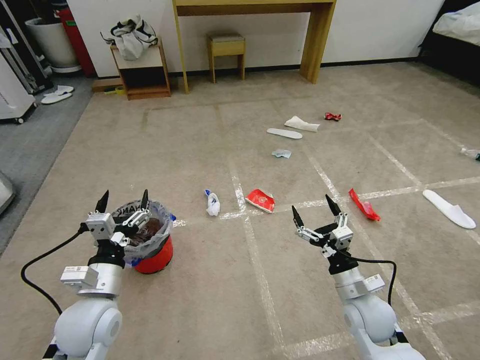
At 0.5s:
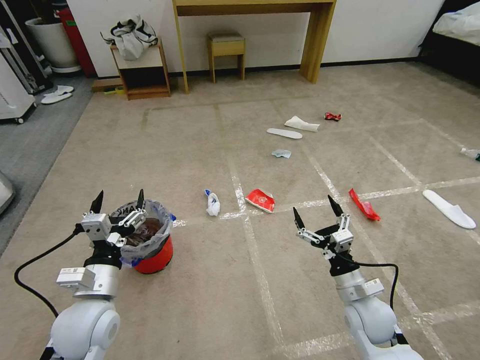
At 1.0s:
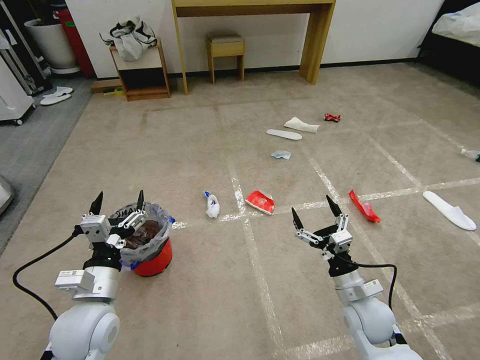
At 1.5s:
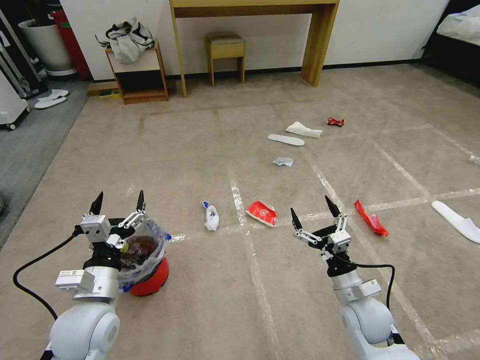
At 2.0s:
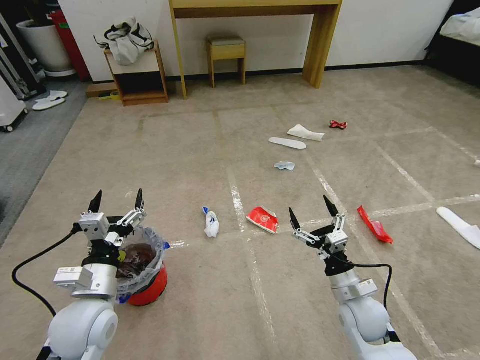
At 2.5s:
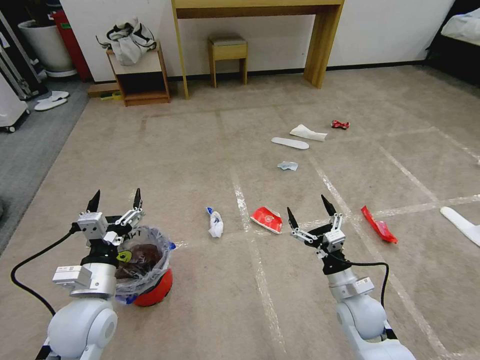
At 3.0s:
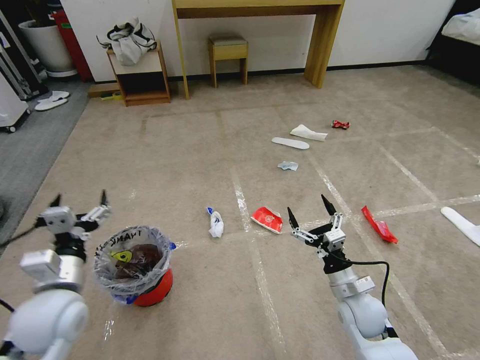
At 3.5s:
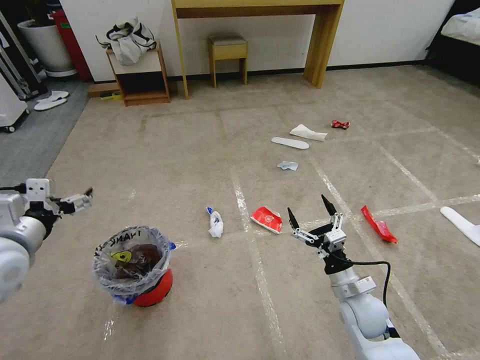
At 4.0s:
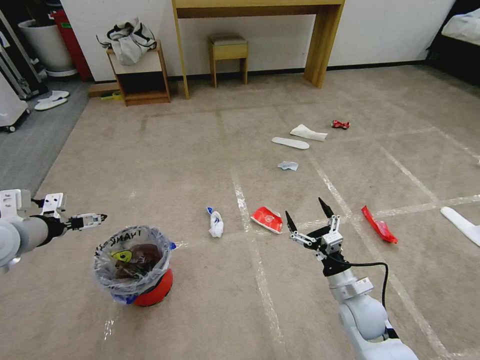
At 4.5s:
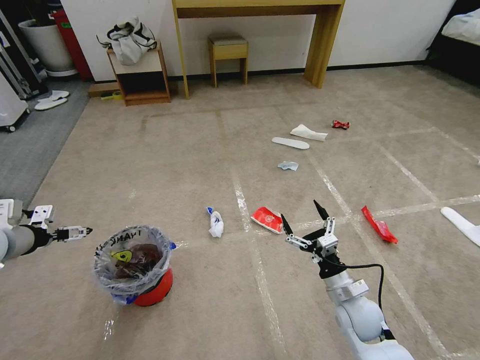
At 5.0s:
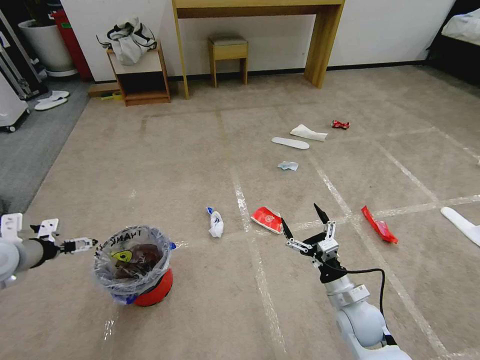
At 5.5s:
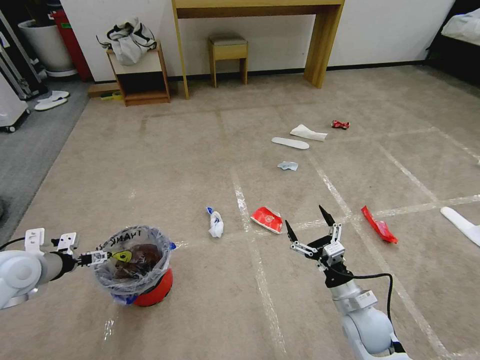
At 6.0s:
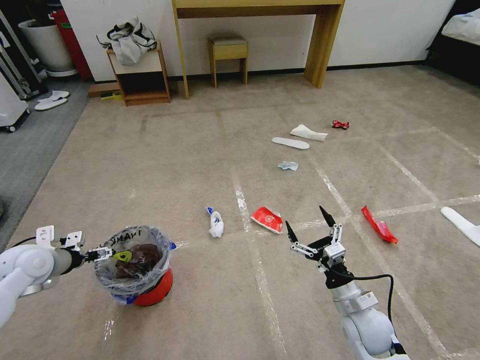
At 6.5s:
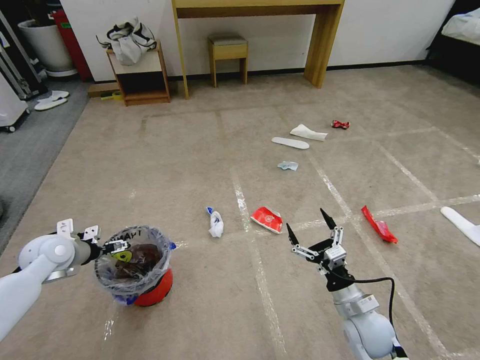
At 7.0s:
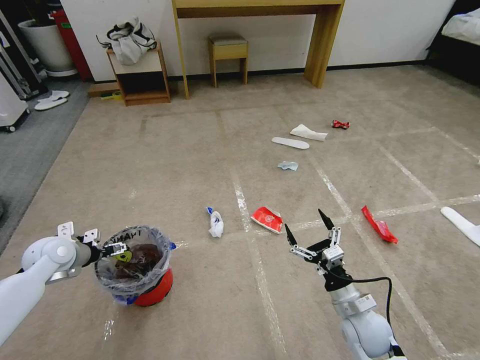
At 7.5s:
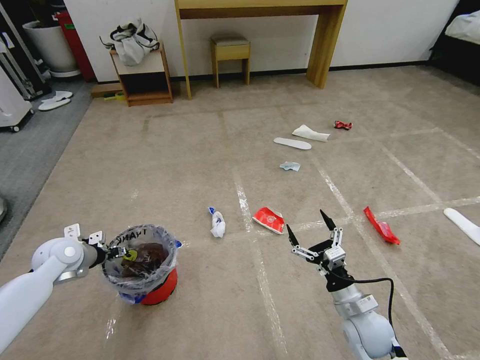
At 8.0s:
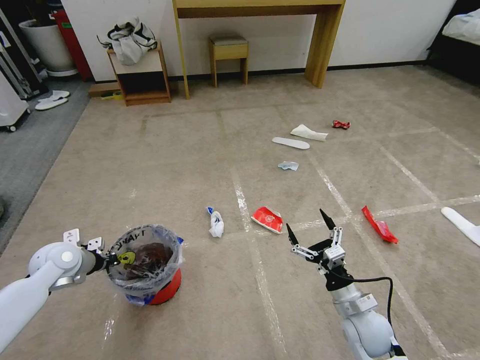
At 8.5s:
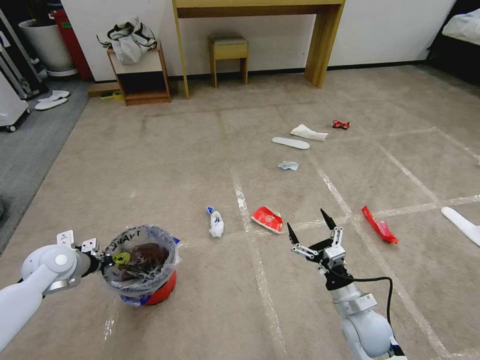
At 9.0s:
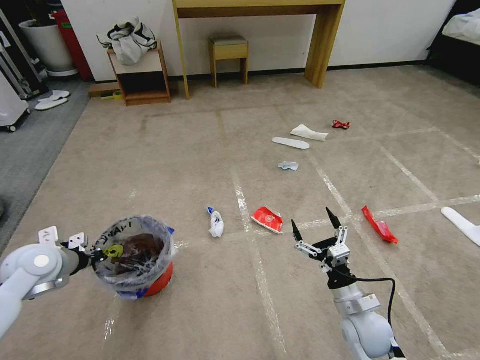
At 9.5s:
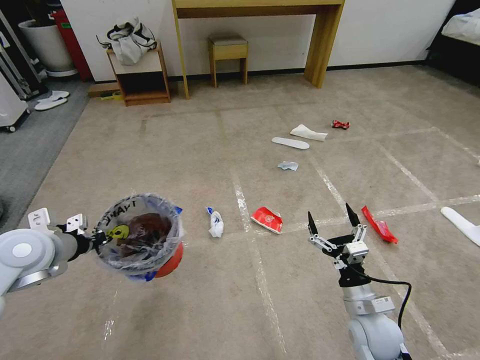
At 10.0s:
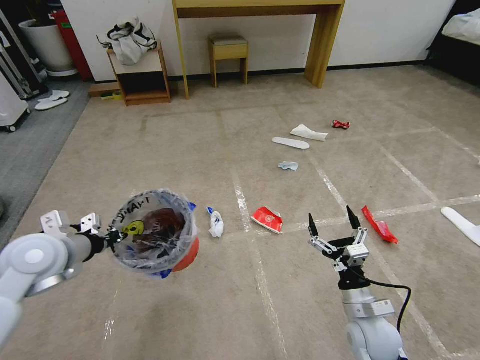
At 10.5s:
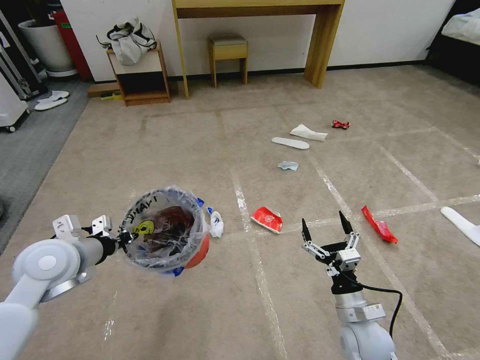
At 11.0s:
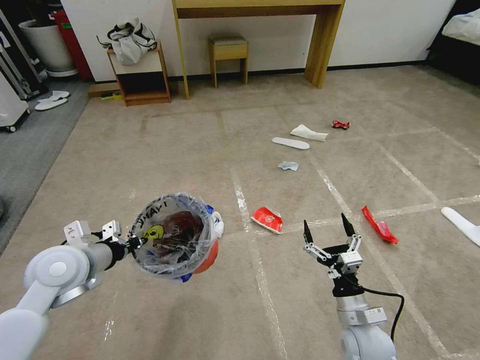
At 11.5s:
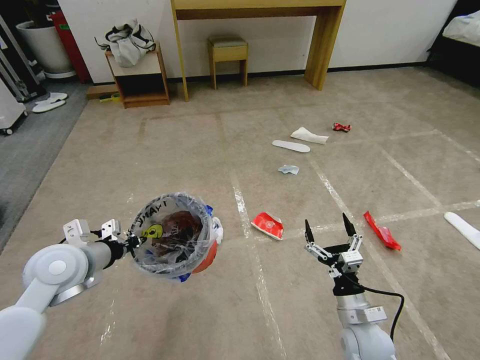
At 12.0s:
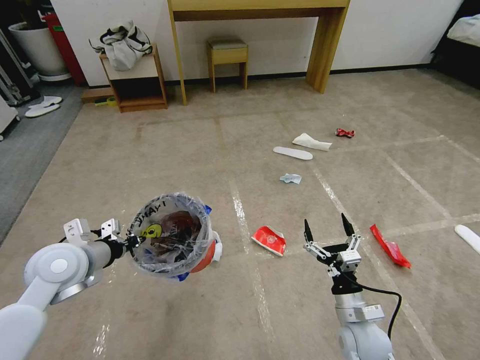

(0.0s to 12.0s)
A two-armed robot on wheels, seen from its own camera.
Task of the whole recording: Pick up the trash bin and place the garbage on the floor into it.
2.0s - 4.0s: The left gripper moves to the left, upward and forward, approximately 20 cm.
4.0s - 6.0s: The left gripper heads downward, covering approximately 10 cm.
6.0s - 8.0s: The left gripper moves about 5 cm, and closes.
8.0s - 10.0s: The left gripper travels upward, backward and to the right by roughly 15 cm.

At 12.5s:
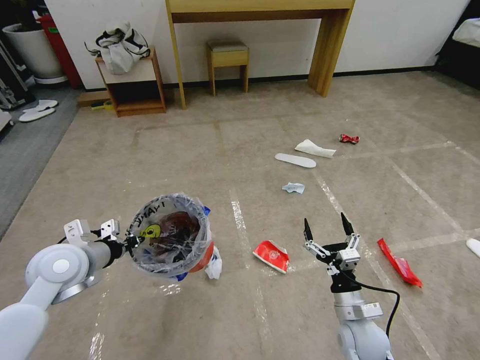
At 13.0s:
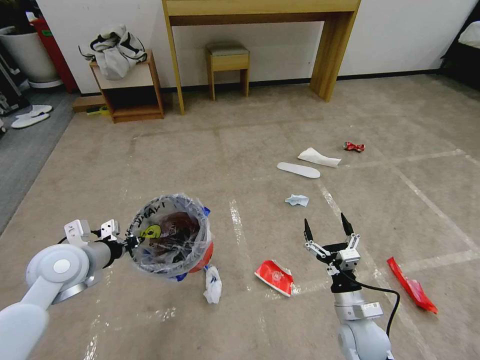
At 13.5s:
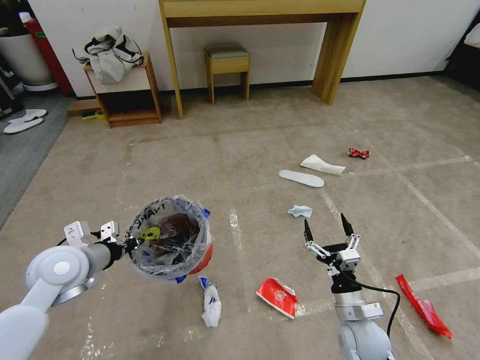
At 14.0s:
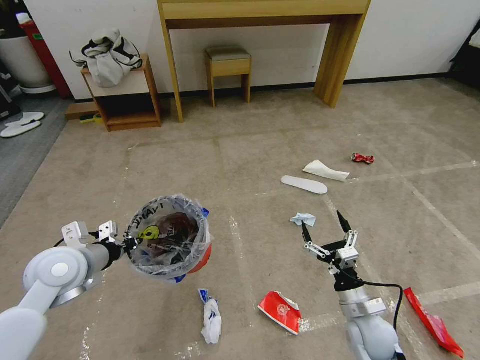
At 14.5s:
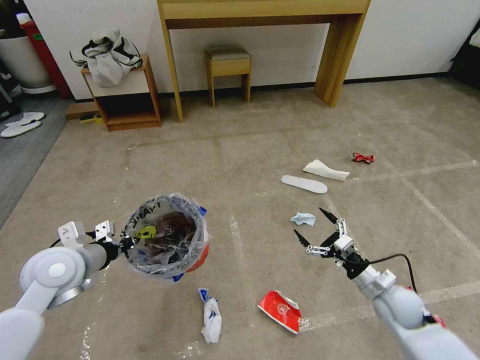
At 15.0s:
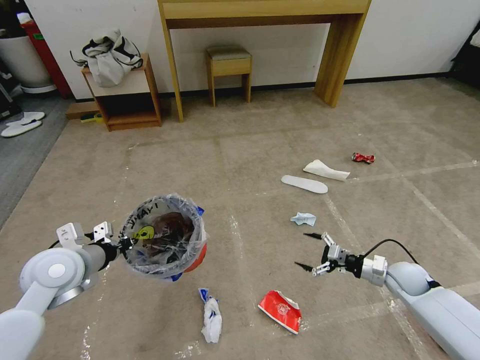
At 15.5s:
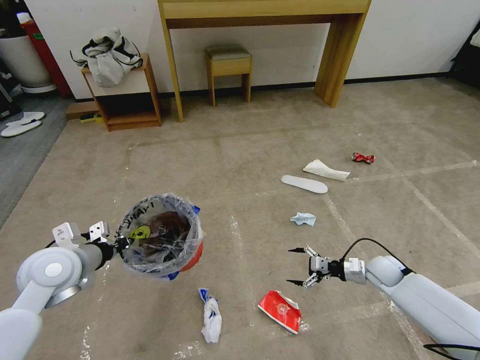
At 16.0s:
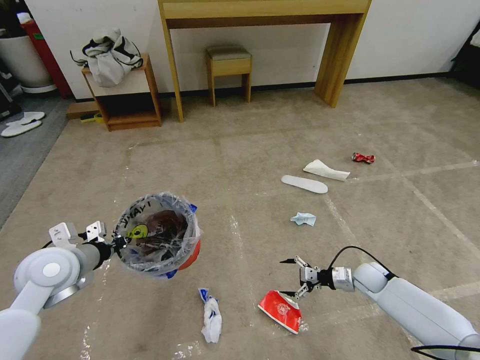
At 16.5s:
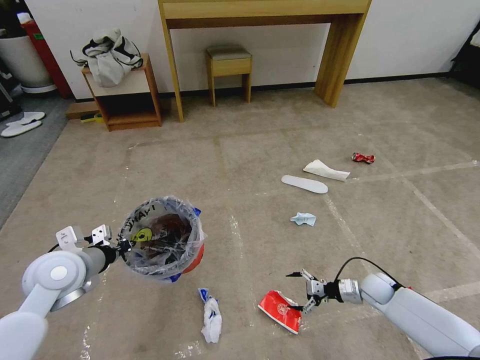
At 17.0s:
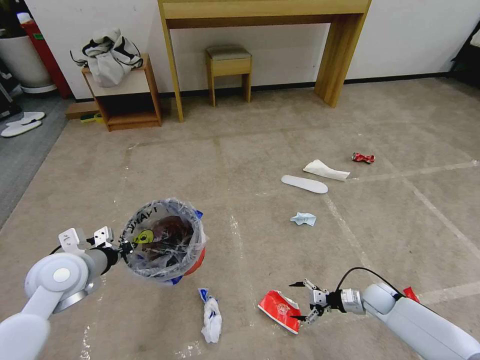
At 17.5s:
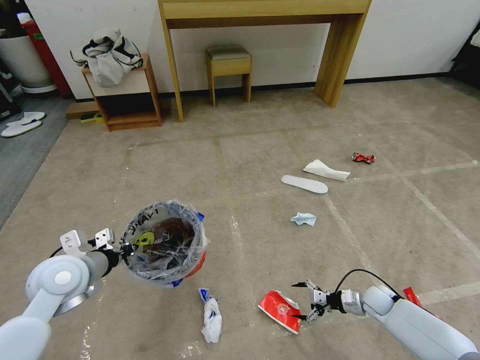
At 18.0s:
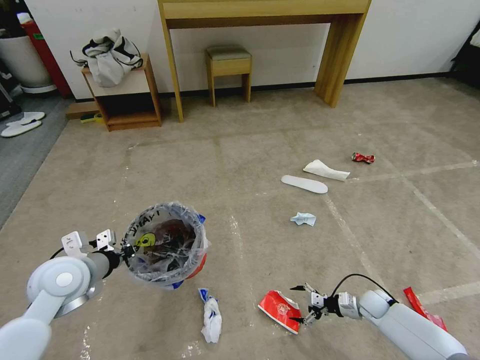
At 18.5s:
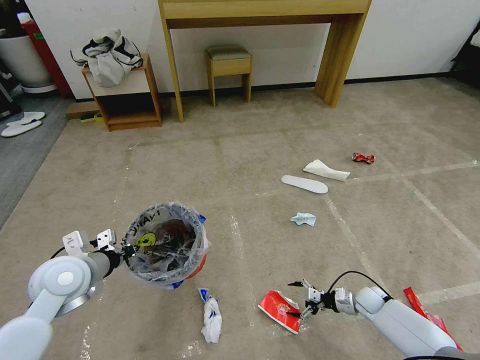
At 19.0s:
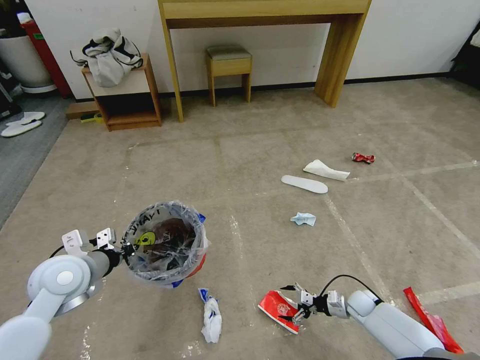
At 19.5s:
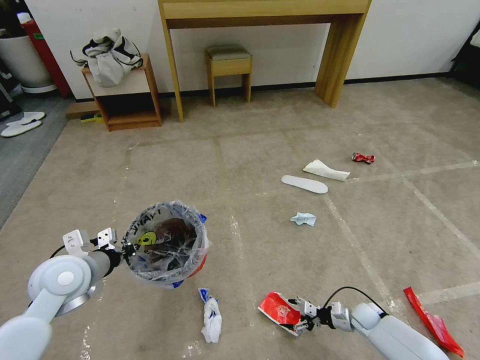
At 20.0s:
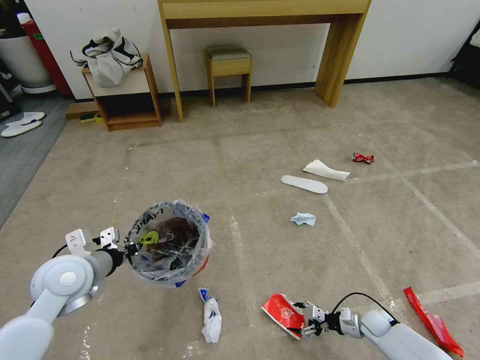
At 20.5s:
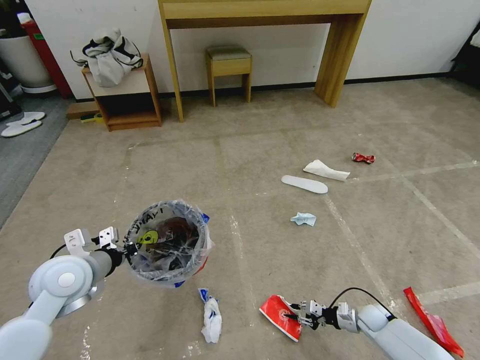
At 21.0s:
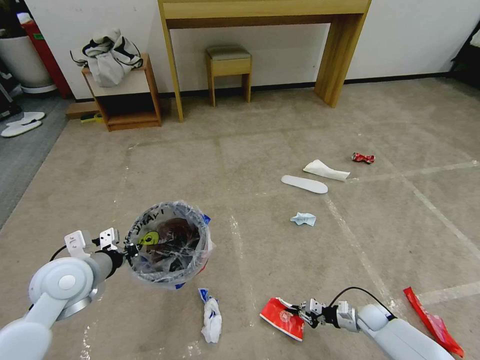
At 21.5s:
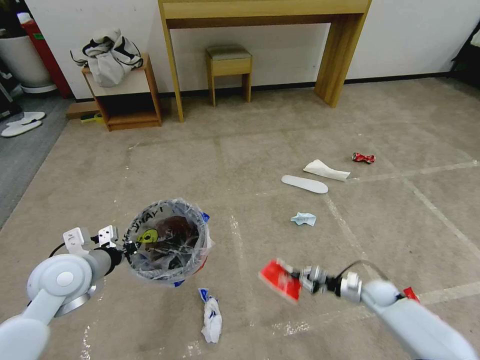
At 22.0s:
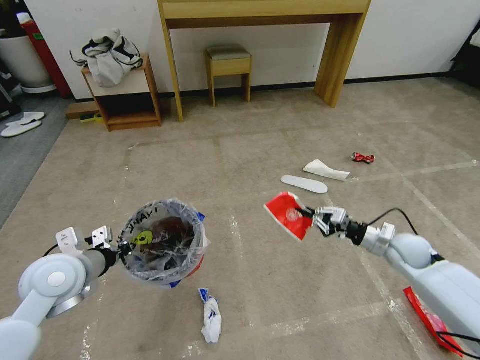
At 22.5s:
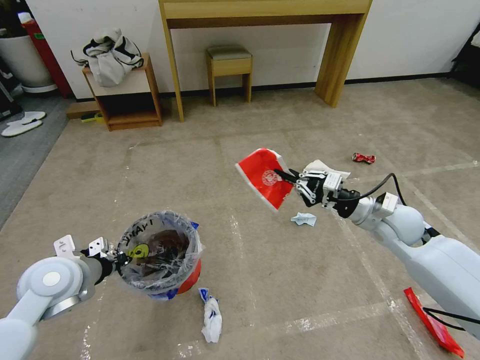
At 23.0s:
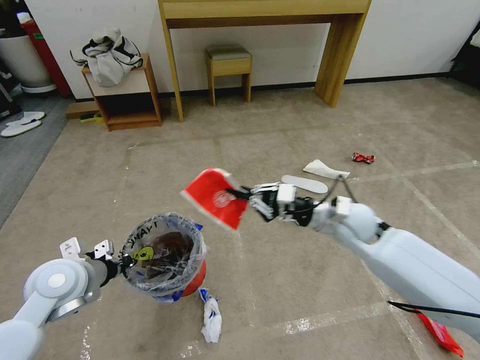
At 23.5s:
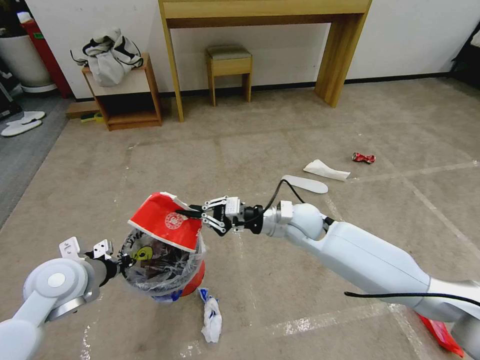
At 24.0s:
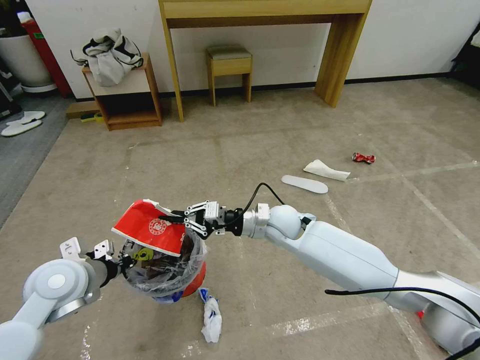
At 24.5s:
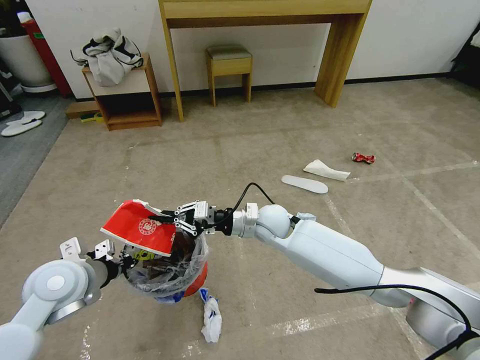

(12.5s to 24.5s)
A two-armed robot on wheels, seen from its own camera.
Task of the whole recording: Pick up the trash bin and place the garbage on the floor into it.
12.5s - 14.5s: The right gripper moves to the right and forward, some 15 cm.
14.5s - 16.5s: The right gripper is displaced downward and forward by some 10 cm.
16.5s - 18.5s: The right gripper is displaced downward by about 5 cm.
18.5s - 20.5s: The right gripper changes place by some 5 cm, and closes.
20.5s - 22.5s: The right gripper heads upward, covering about 35 cm.
22.5s - 24.5s: The right gripper goes roughly 25 cm to the left.

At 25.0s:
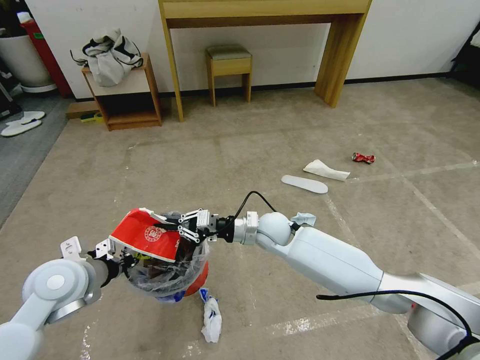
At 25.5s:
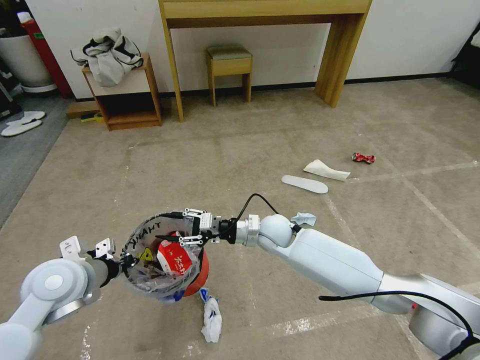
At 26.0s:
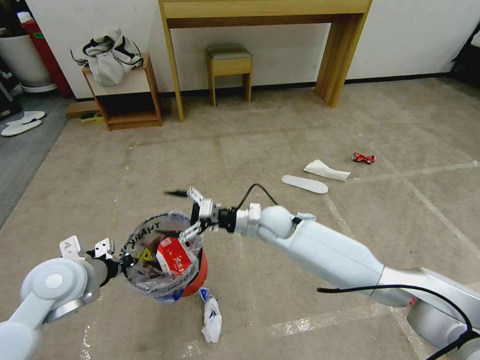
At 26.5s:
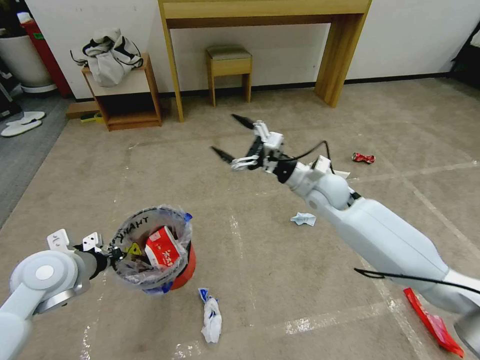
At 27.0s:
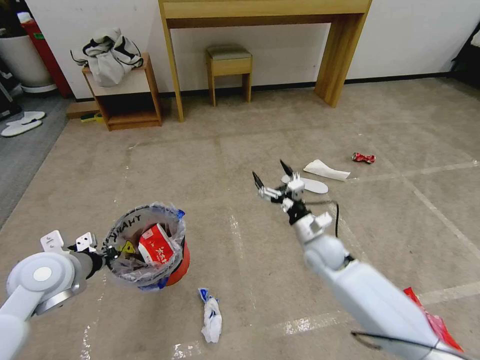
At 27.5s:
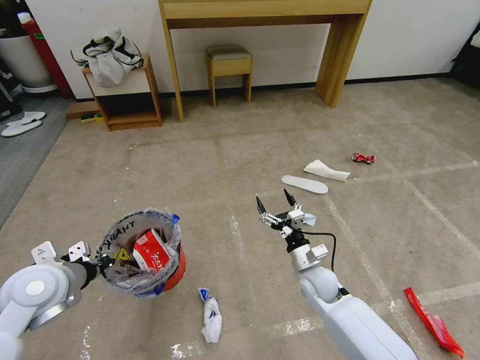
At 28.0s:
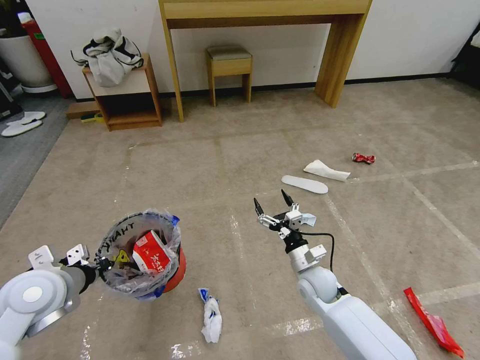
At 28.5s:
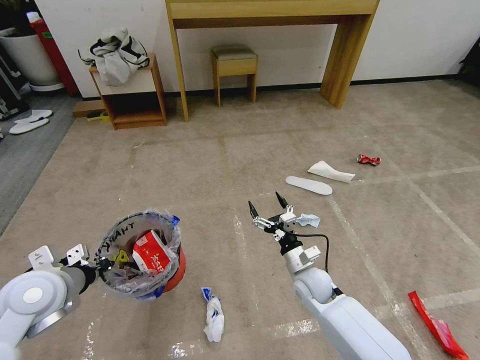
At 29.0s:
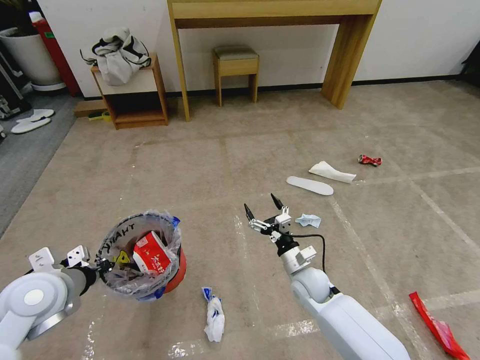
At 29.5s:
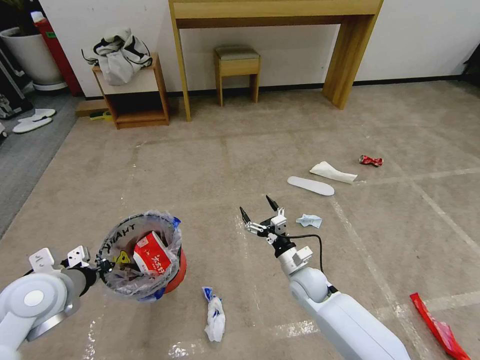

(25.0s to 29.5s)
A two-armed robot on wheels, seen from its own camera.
Task of the whole recording: Pick up the trash bin and place the garbage on the floor into it.
25.0s - 27.0s: The right gripper heads to the right, covering roughly 15 cm, goes upward and returns, some 10 cm each way, and opens up.
27.0s - 29.5s: The right gripper is displaced downward and backward by about 10 cm.
